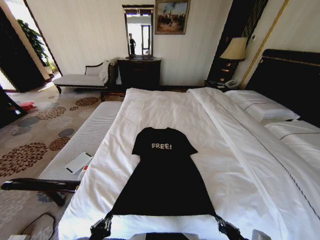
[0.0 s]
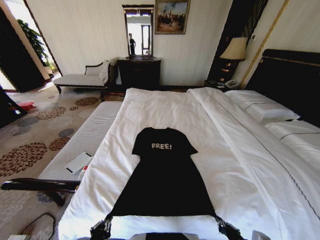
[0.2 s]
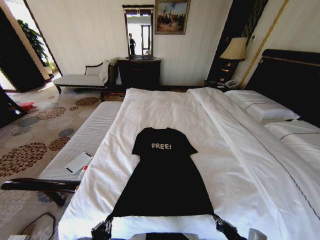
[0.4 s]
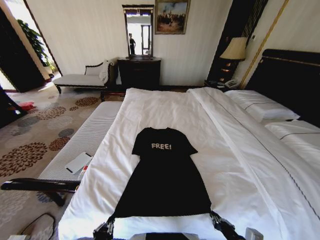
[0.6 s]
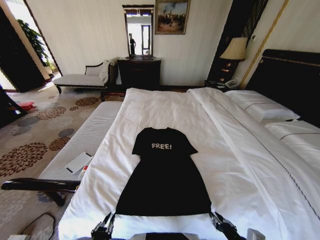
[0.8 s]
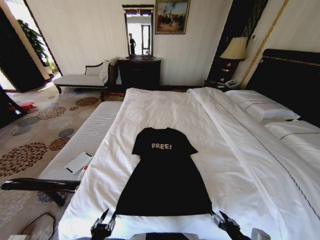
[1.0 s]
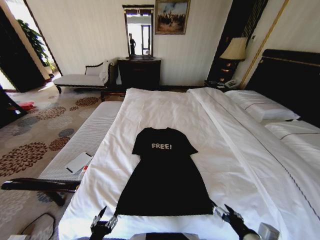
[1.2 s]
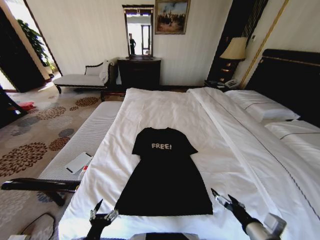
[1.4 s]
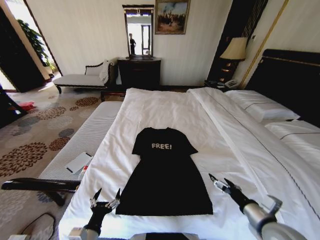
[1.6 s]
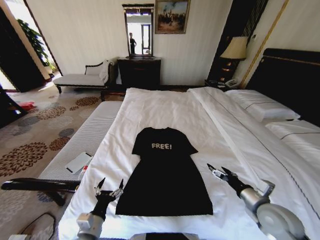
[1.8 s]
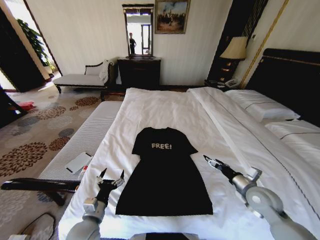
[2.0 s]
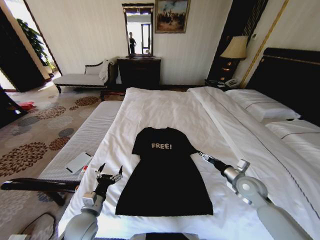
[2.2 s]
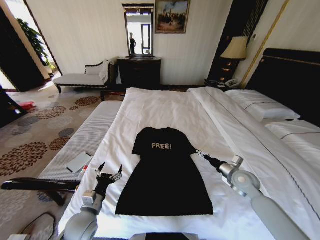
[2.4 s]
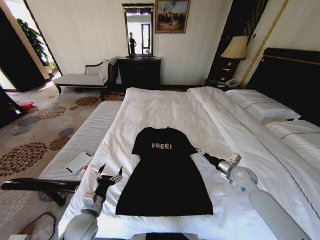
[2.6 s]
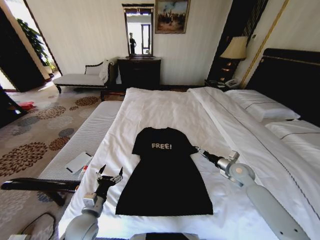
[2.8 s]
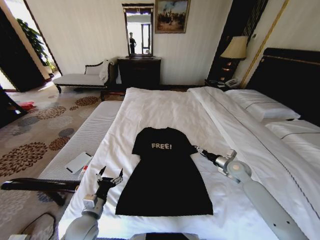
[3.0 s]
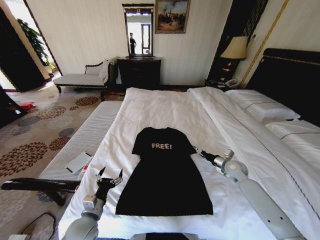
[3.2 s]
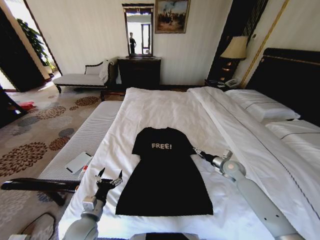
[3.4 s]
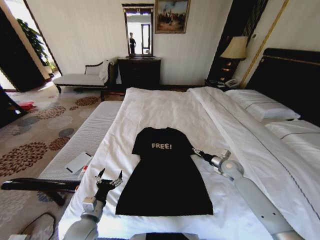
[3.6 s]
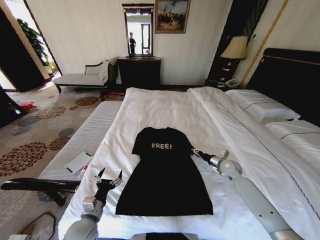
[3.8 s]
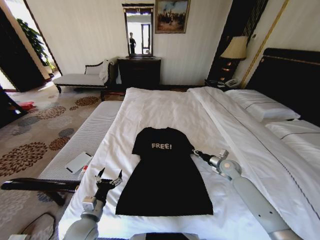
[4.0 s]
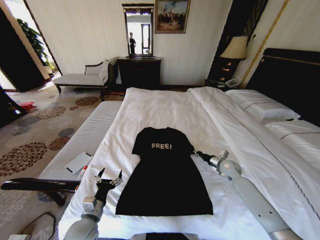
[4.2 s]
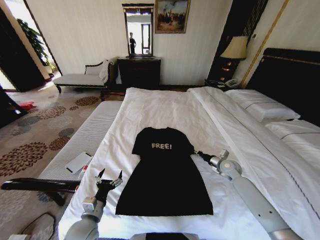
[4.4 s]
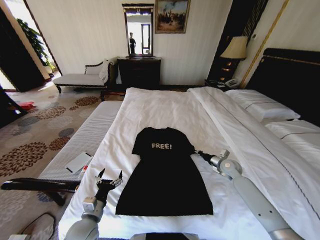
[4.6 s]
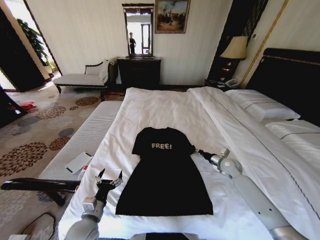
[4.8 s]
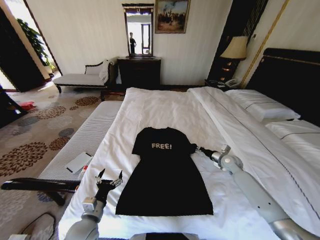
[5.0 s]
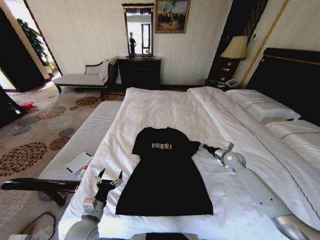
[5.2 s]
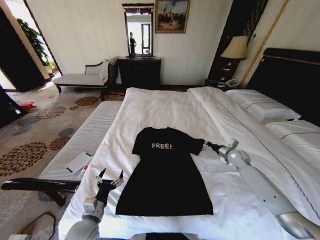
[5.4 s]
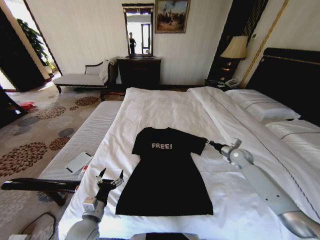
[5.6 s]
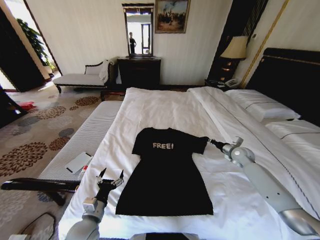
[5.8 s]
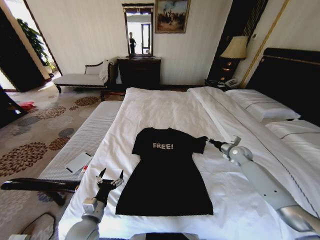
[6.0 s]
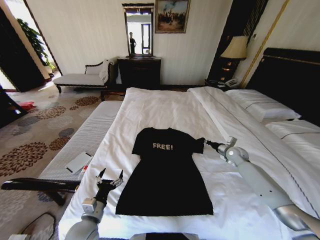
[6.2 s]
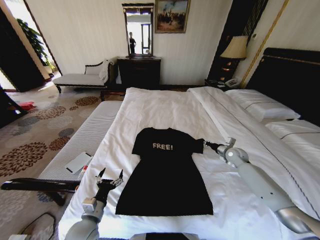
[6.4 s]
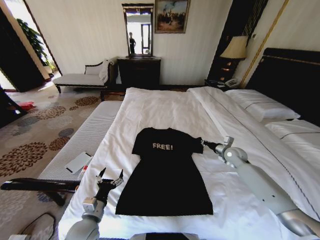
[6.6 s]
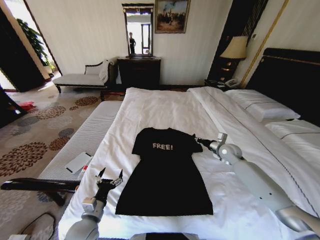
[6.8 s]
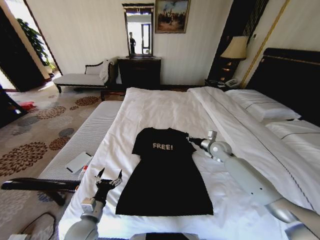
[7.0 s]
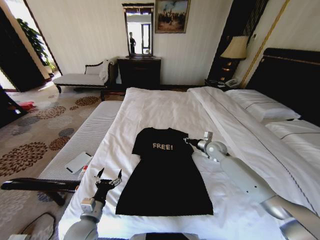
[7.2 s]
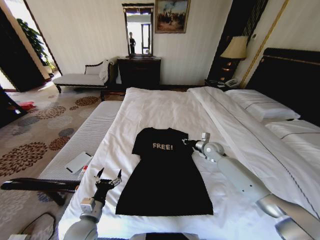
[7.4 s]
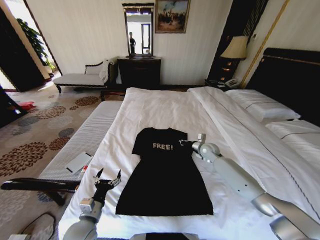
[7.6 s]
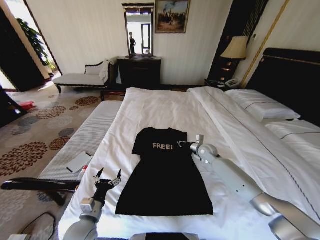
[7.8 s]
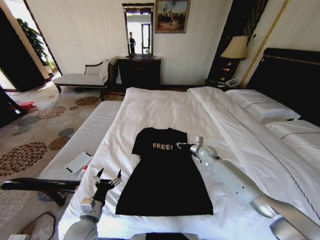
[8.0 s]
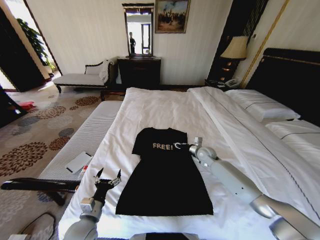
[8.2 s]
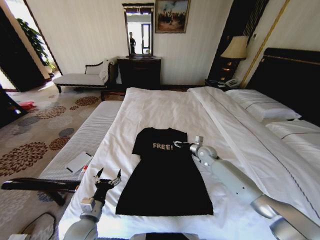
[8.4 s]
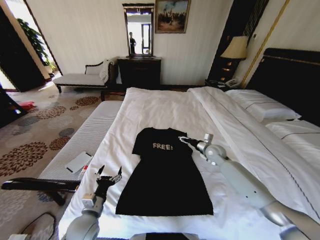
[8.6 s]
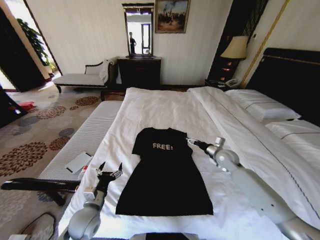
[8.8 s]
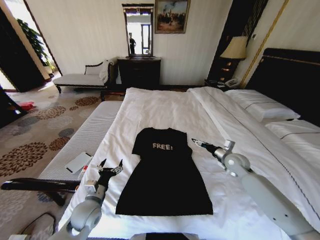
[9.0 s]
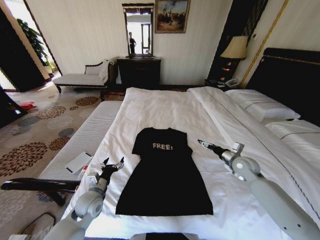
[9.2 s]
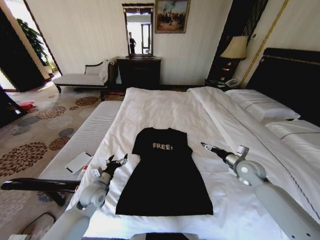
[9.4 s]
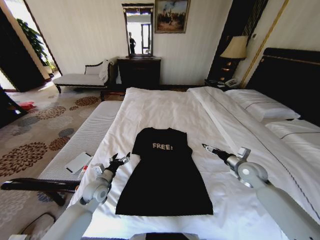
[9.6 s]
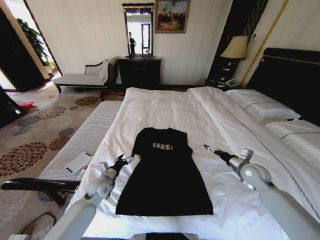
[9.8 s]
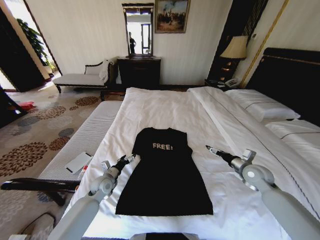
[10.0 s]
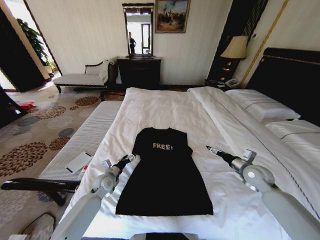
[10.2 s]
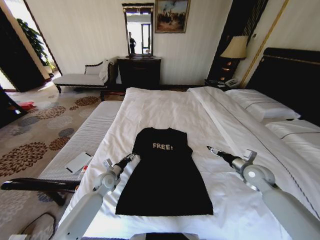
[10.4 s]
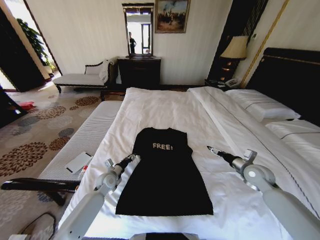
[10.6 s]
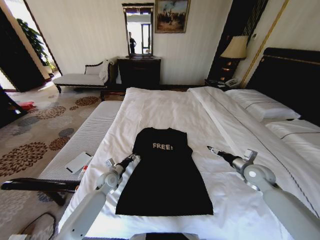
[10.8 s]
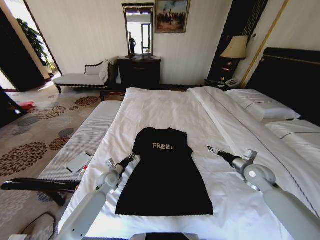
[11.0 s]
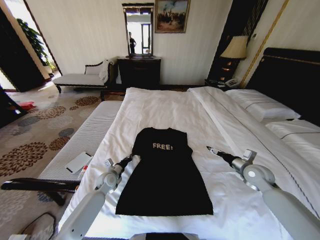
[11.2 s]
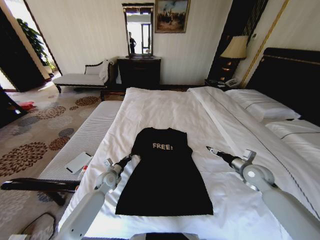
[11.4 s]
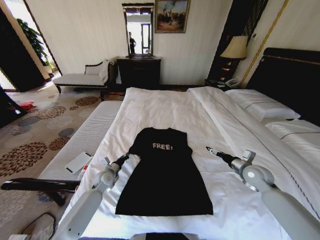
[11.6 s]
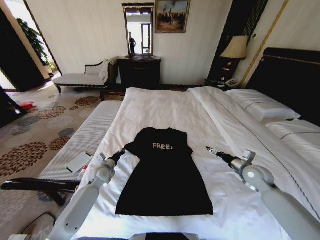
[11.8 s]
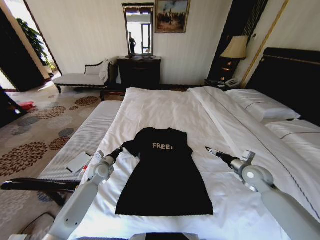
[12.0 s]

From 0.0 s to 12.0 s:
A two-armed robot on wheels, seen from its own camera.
Task of the whole recording: Fold the clothes on the bed.
From 0.0 s to 1.6 s: The right gripper is displaced forward and upward by about 10 cm, and opens its fingers. Meanwhile the left gripper changes place by approximately 5 cm, and opens.
From 1.6 s to 3.0 s: The right gripper is displaced forward by approximately 25 cm. The left gripper is displaced forward by roughly 10 cm.
From 3.0 s to 4.4 s: The right gripper closes.
From 4.4 s to 6.0 s: The right gripper moves to the right and forward, about 10 cm.
From 6.0 s to 7.6 s: The right gripper is displaced to the left by some 15 cm.
From 7.6 s to 9.0 s: The left gripper moves forward, about 5 cm, while the right gripper is displaced backward and to the right by roughly 15 cm, and opens.
From 9.0 s to 10.4 s: The left gripper goes approximately 15 cm forward and downward. The right gripper moves backward, some 5 cm.
From 10.4 s to 12.0 s: The left gripper moves about 5 cm, and closes up.

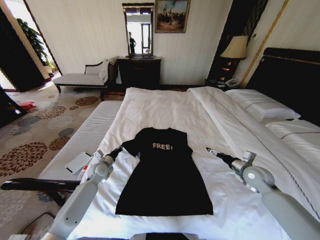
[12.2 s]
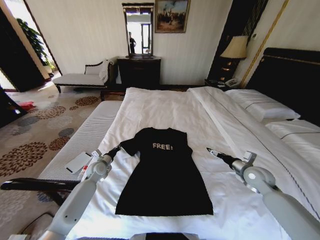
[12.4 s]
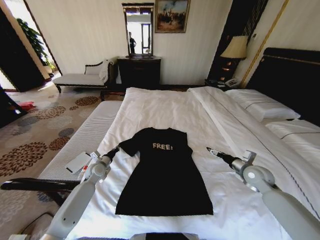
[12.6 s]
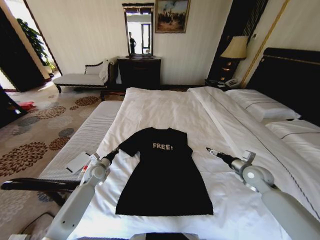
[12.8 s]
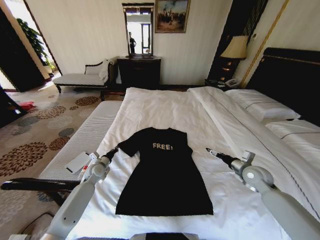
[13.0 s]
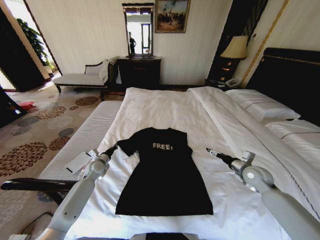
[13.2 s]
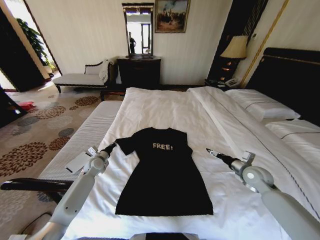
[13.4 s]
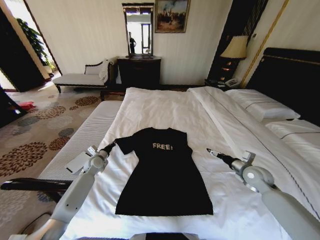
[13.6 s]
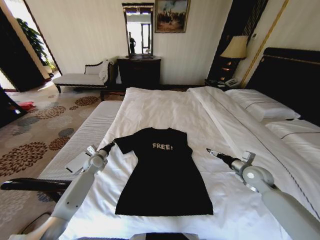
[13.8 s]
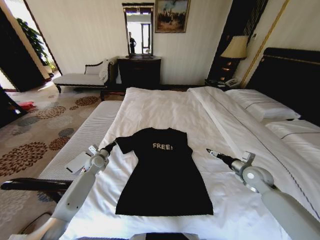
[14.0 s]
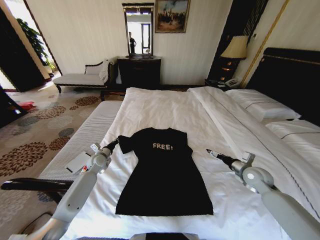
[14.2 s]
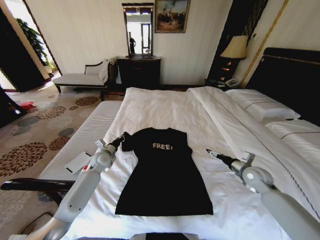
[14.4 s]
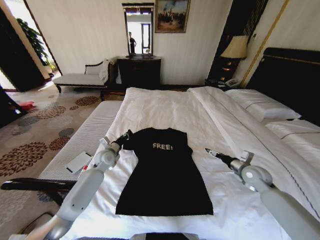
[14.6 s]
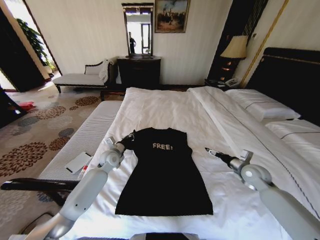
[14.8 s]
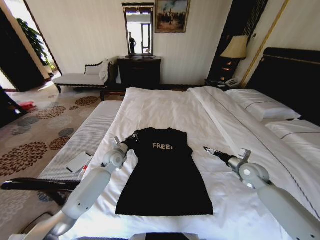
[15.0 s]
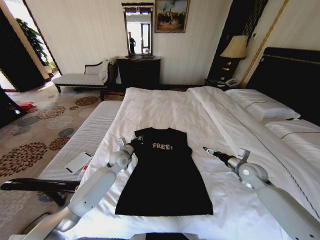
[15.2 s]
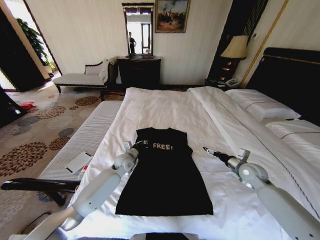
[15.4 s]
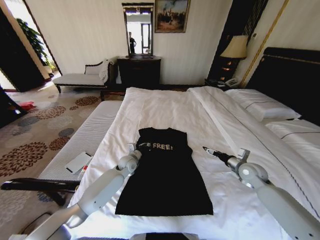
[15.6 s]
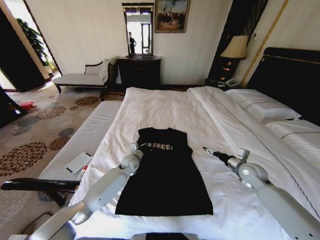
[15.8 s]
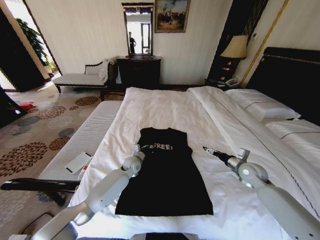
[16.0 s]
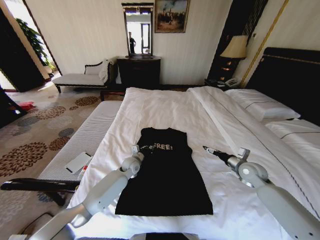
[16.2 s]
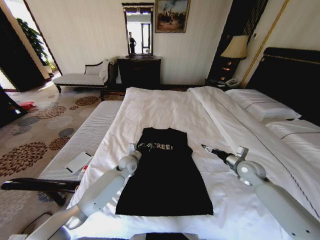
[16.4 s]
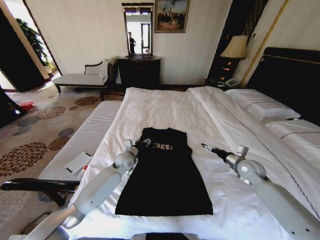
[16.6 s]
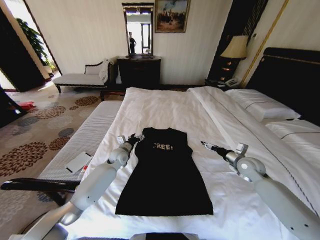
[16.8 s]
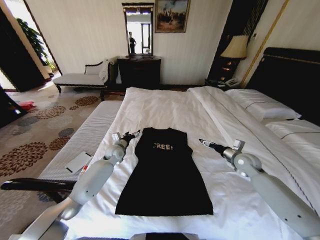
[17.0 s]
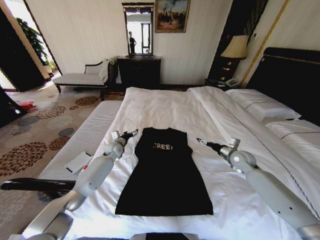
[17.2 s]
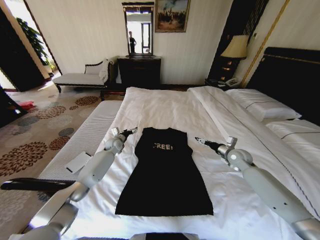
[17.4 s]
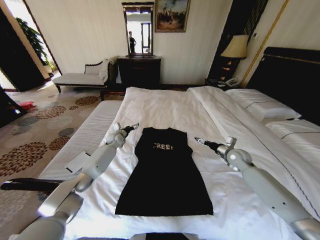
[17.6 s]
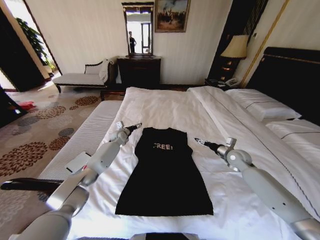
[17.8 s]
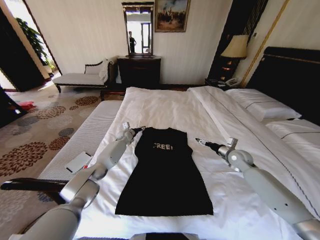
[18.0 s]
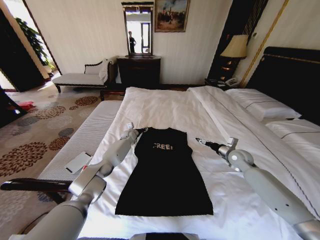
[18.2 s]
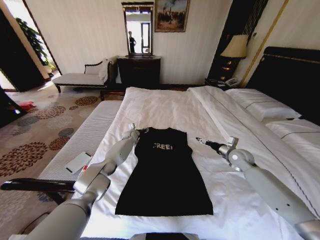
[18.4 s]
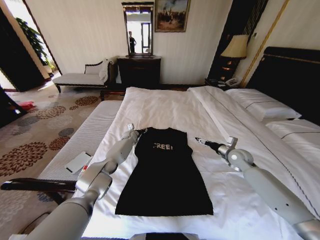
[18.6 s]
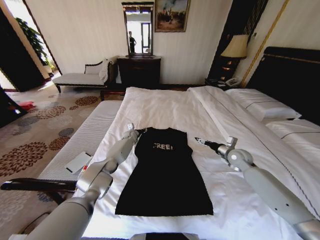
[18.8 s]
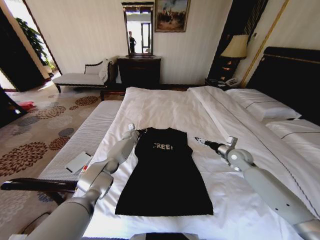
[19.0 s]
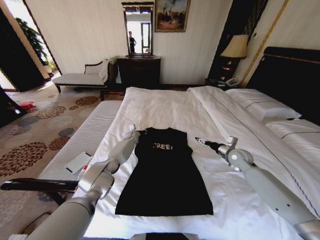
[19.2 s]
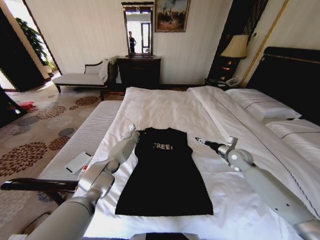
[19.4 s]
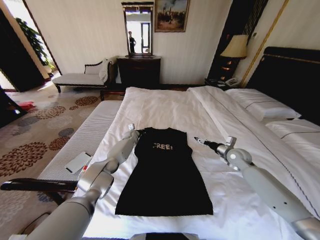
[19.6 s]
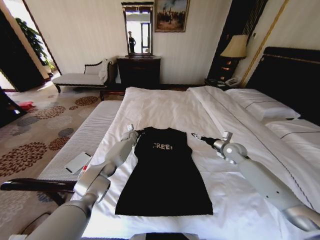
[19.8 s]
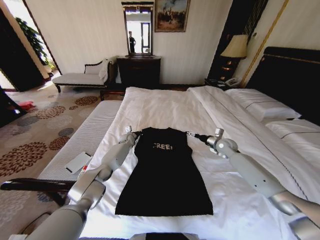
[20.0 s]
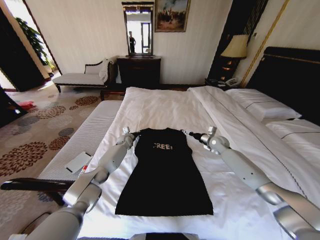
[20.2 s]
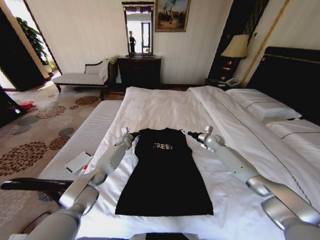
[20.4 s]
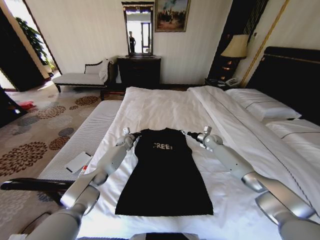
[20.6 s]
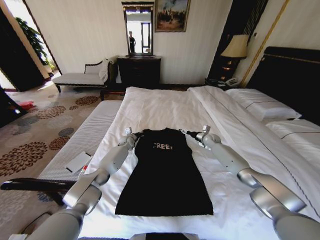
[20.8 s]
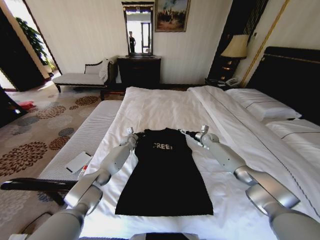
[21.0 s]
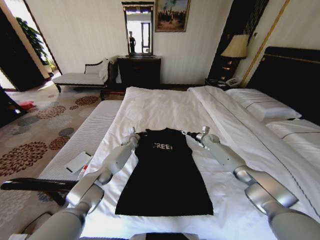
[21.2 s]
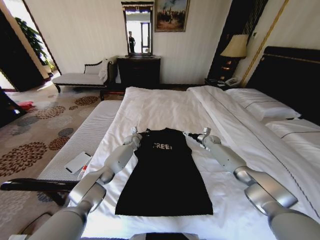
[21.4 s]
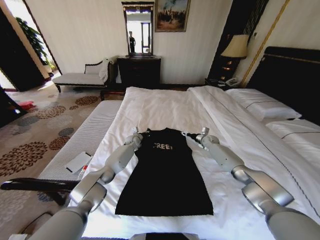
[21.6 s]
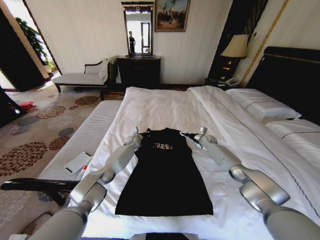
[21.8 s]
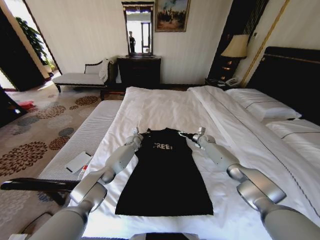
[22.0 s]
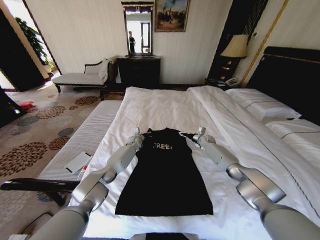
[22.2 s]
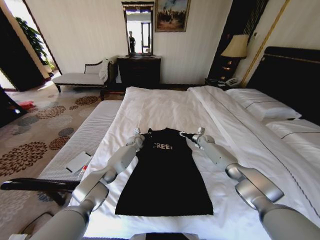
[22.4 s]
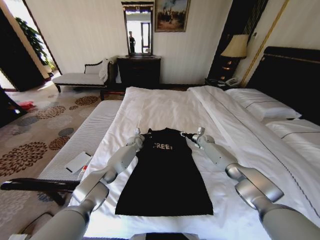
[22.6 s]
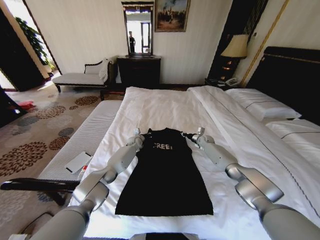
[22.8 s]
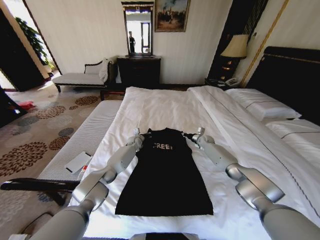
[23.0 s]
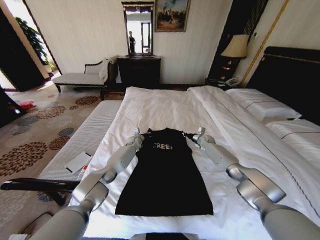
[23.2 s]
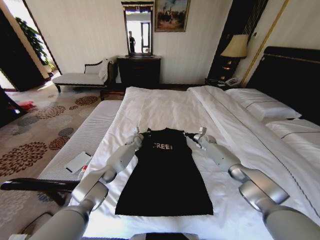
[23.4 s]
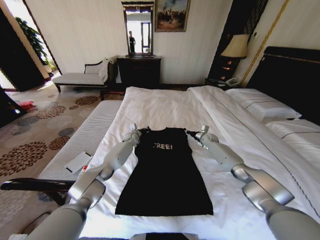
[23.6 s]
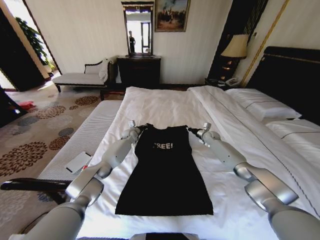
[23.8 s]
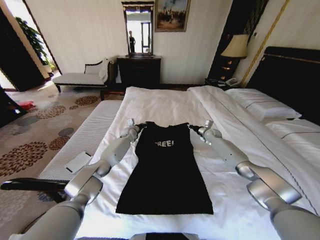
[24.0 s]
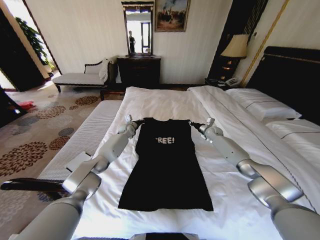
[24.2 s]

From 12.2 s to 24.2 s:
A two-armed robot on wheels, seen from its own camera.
Task of the whole recording: Fold the clothes on the bed.
From 12.2 s to 13.8 s: The left gripper moves some 5 cm.
From 13.8 s to 15.2 s: The left gripper moves to the right, approximately 15 cm.
From 15.2 s to 16.6 s: The left gripper opens.
From 16.6 s to 18.2 s: The right gripper travels forward by about 5 cm. Meanwhile the left gripper moves forward, about 20 cm, and opens, then closes once more.
From 18.2 s to 19.8 s: The left gripper closes its fingers.
From 19.8 s to 21.2 s: The right gripper heads forward and downward, covering roughly 15 cm.
From 21.2 s to 22.6 s: The right gripper closes.
From 22.6 s to 24.2 s: The two grippers go approximately 10 cm upward. The right gripper closes its fingers.
